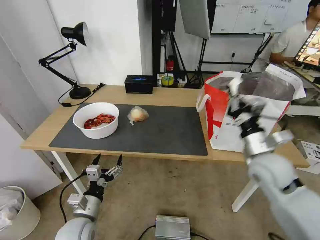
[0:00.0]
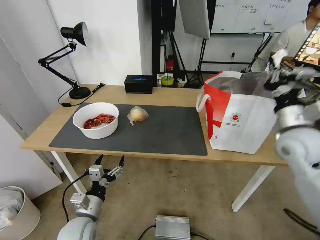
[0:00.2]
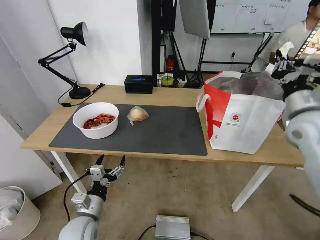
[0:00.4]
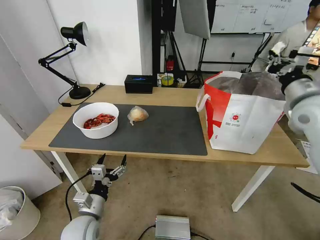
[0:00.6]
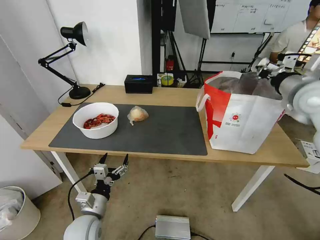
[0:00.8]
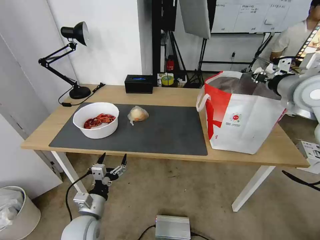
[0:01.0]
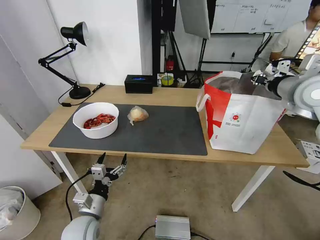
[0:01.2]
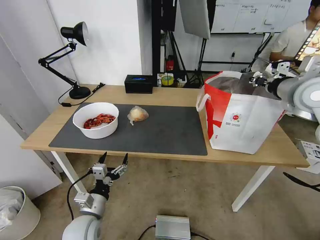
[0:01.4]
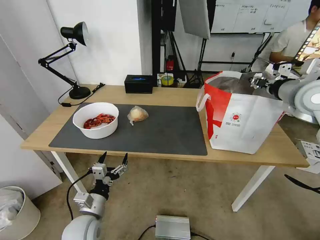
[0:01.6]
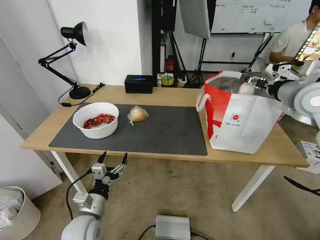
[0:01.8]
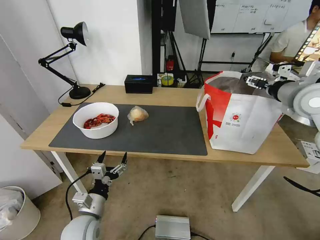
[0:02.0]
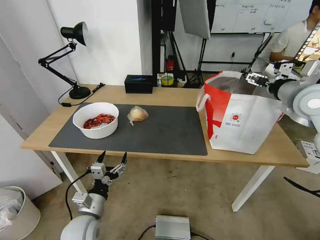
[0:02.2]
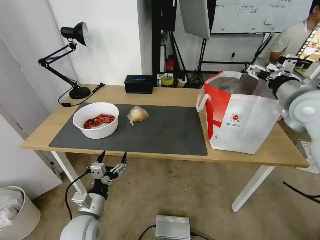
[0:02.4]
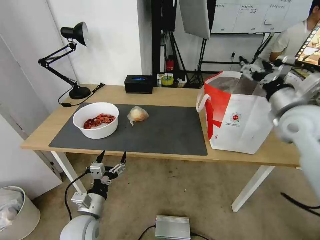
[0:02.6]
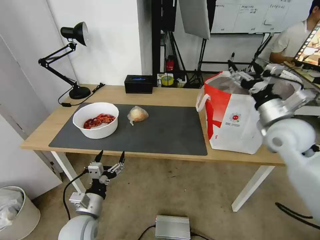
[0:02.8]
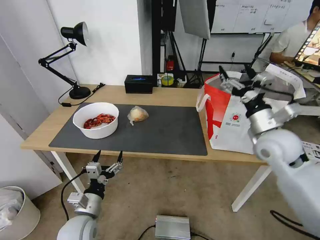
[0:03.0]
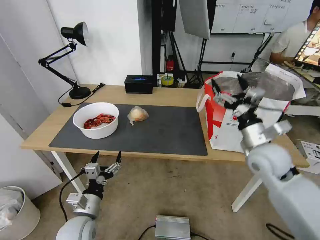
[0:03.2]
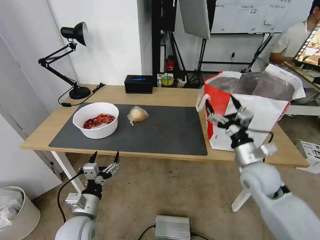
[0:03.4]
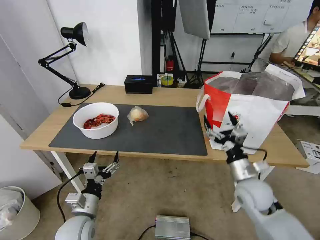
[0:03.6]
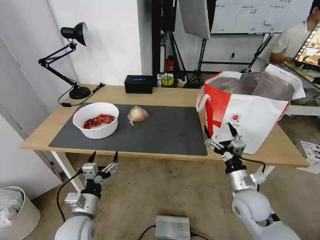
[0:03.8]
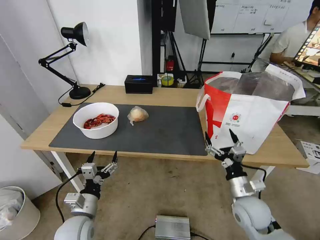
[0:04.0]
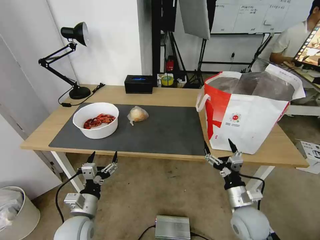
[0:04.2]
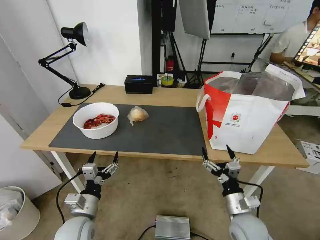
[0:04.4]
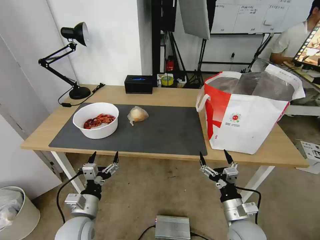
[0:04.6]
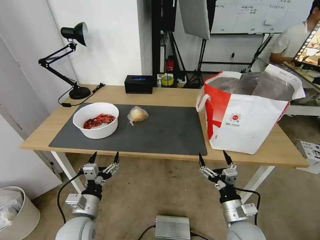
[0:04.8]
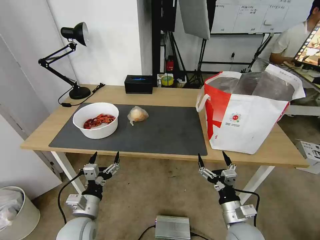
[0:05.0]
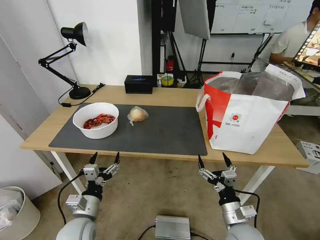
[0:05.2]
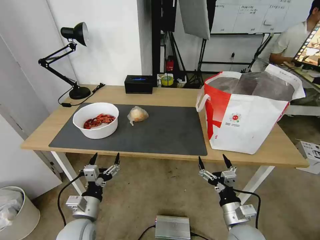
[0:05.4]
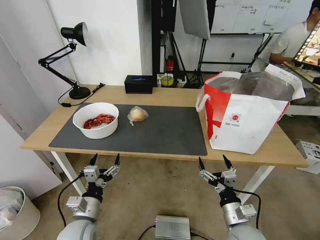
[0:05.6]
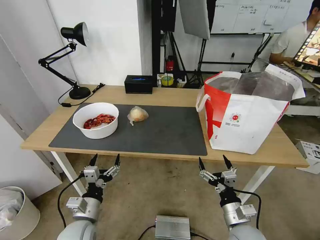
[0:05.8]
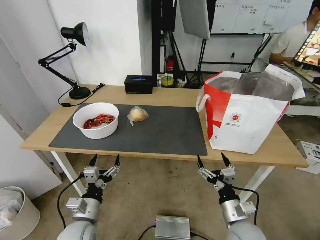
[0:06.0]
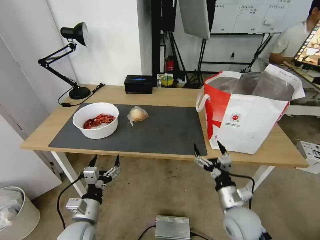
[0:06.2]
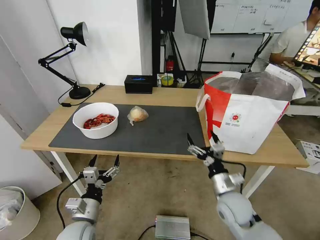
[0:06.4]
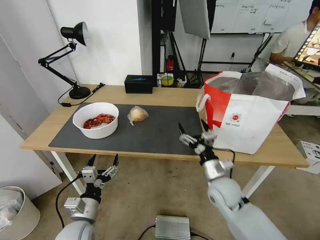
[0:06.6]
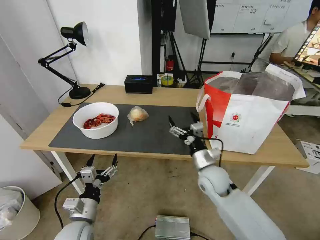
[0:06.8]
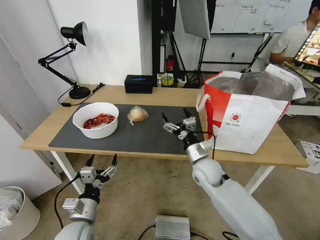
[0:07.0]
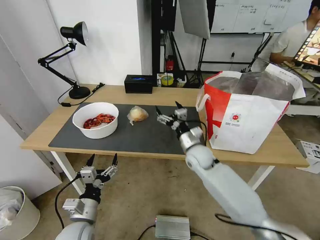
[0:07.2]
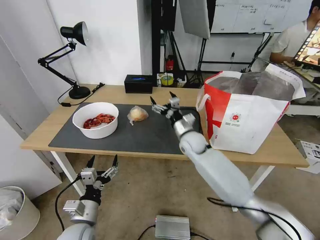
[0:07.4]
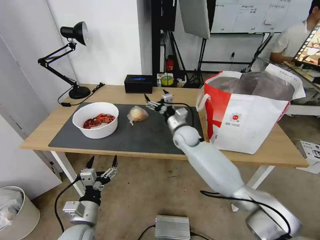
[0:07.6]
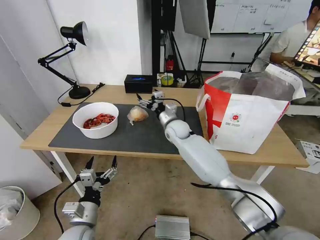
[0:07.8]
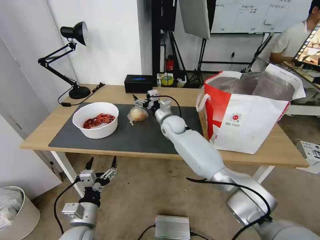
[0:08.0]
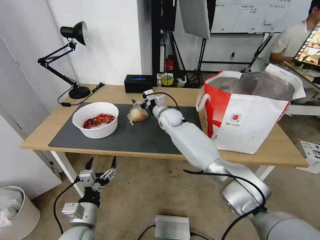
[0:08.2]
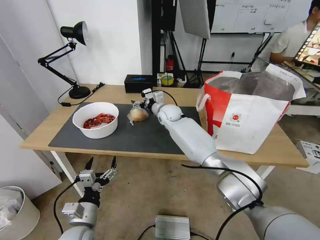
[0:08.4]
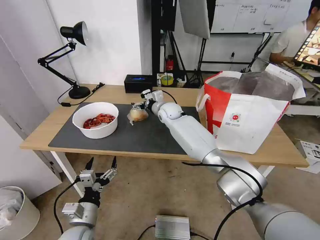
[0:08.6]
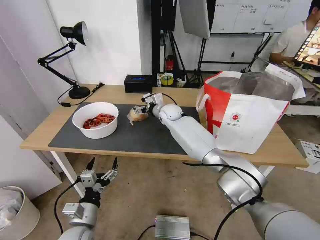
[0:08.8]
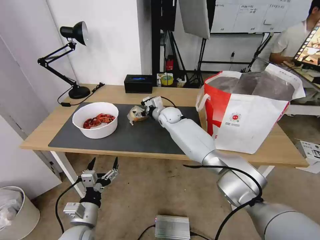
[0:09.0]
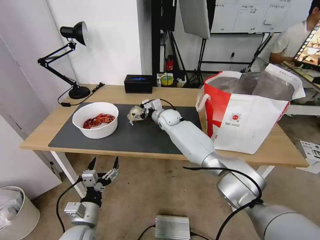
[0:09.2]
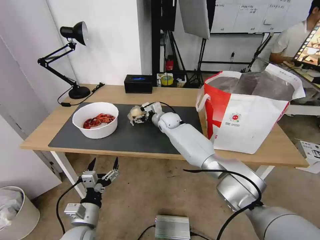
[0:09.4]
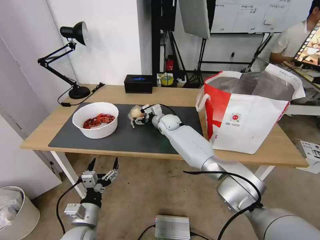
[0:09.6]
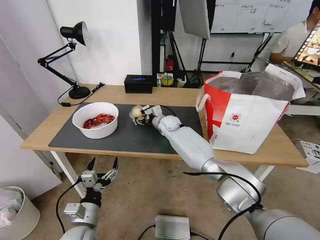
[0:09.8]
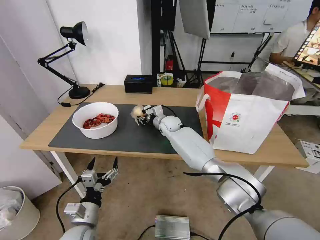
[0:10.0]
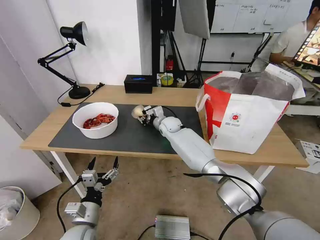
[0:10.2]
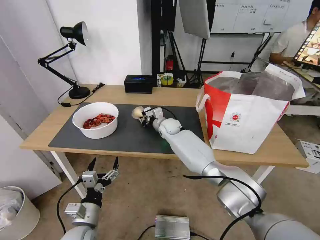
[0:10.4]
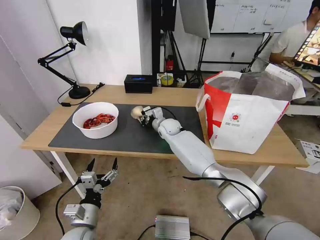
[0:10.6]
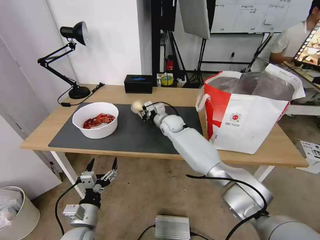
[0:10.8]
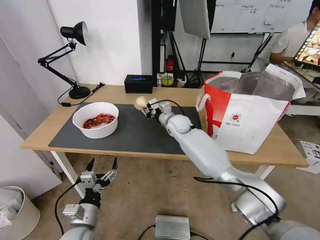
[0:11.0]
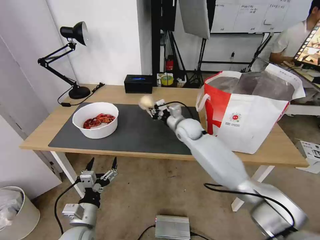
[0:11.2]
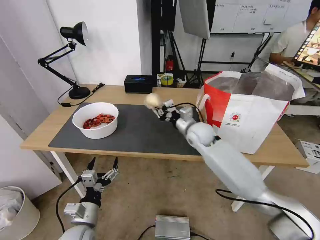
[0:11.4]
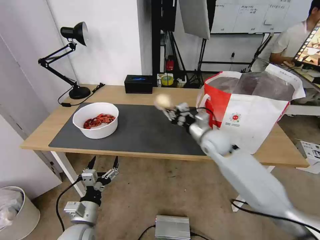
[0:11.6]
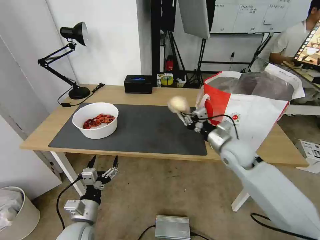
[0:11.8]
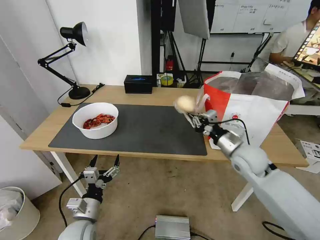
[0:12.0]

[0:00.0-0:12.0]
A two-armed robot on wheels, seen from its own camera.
Task of the whole recording: Pick up the trash from the table and place it into the takeout bag.
0:00.0 to 0:01.6: The right gripper is displaced upward, forward and to the right by roughly 20 cm, and opens its fingers.
0:01.6 to 0:03.0: The right gripper heads downward and to the left, covering approximately 10 cm, and opens up.
0:03.0 to 0:04.4: The right gripper travels downward and backward by approximately 30 cm.
0:04.4 to 0:06.0: The grippers make only small movements.
0:06.0 to 0:07.6: The right gripper shifts roughly 35 cm forward and to the left.
0:07.6 to 0:09.0: The right gripper shifts approximately 10 cm forward and to the left.
0:09.0 to 0:10.4: The right gripper ends up roughly 5 cm from where it was, and closes.
0:10.4 to 0:12.0: The right gripper goes roughly 30 cm to the right and backward.

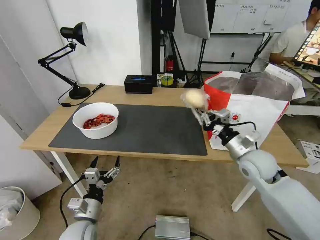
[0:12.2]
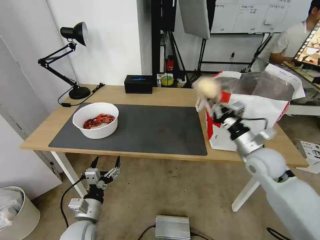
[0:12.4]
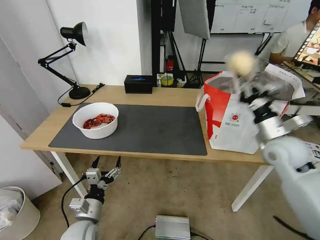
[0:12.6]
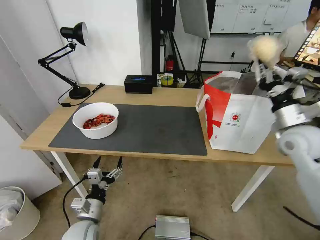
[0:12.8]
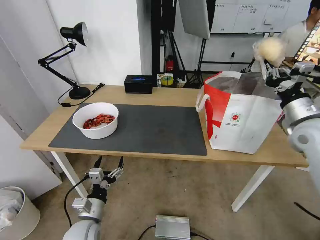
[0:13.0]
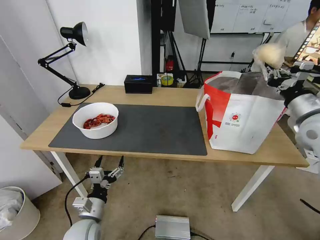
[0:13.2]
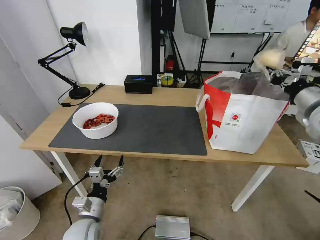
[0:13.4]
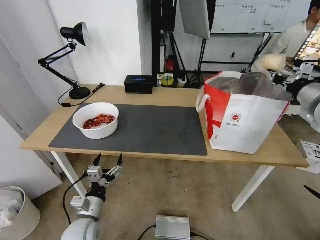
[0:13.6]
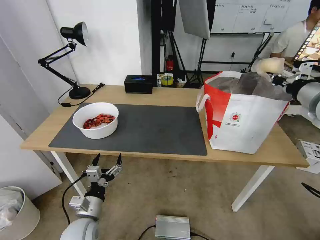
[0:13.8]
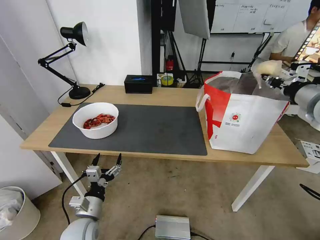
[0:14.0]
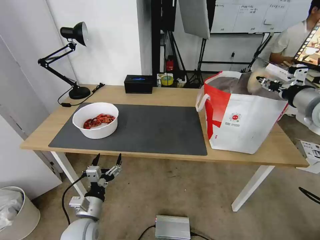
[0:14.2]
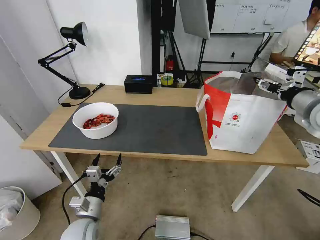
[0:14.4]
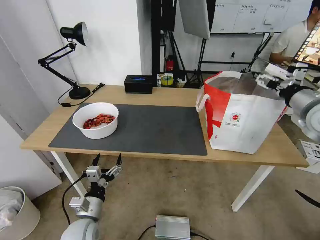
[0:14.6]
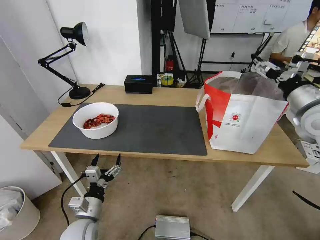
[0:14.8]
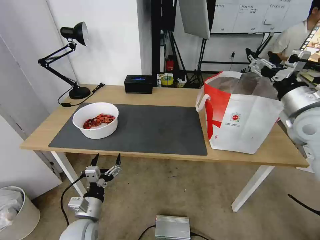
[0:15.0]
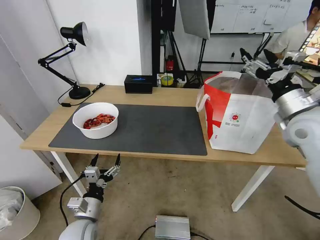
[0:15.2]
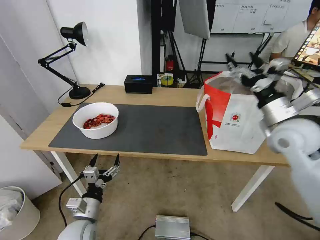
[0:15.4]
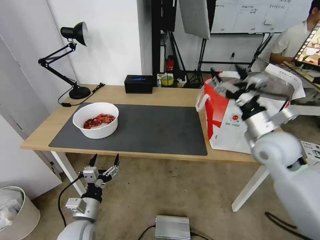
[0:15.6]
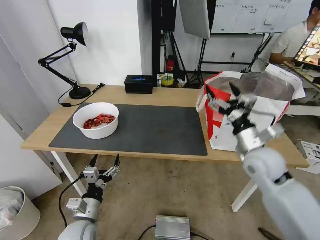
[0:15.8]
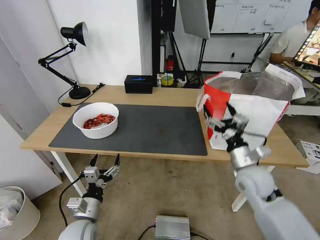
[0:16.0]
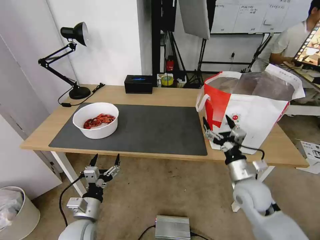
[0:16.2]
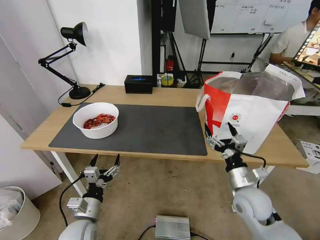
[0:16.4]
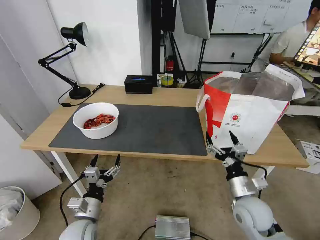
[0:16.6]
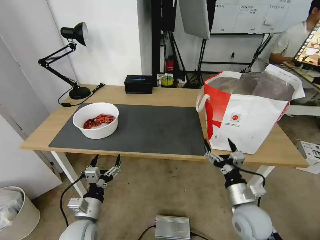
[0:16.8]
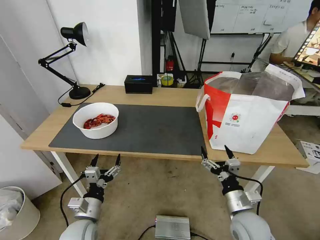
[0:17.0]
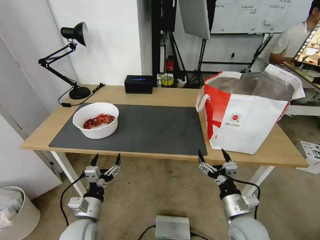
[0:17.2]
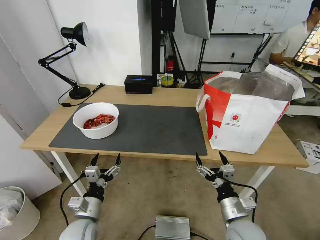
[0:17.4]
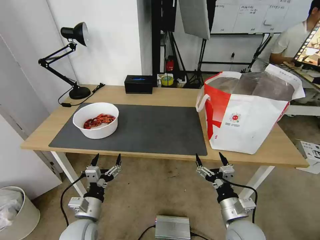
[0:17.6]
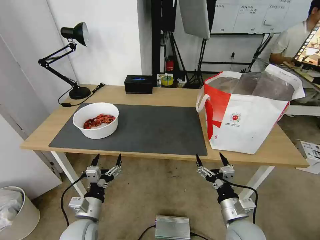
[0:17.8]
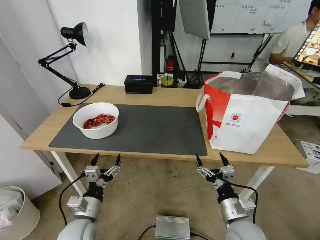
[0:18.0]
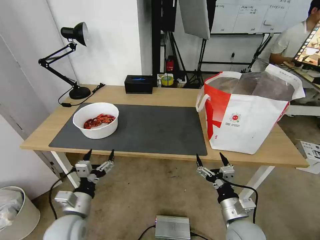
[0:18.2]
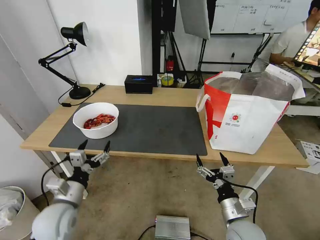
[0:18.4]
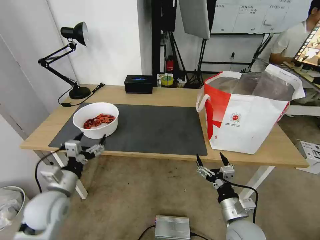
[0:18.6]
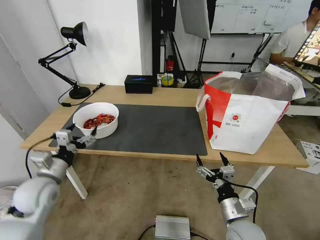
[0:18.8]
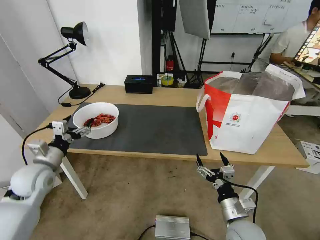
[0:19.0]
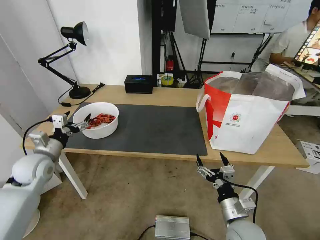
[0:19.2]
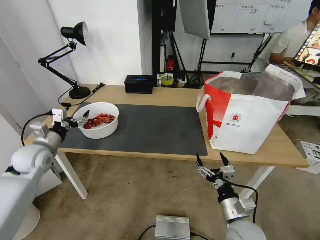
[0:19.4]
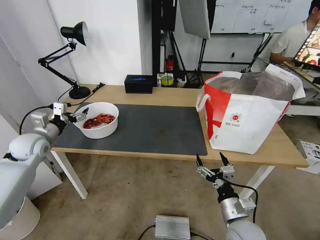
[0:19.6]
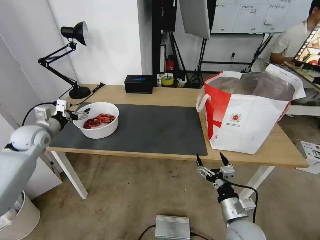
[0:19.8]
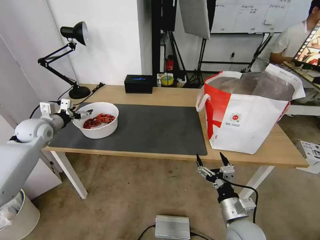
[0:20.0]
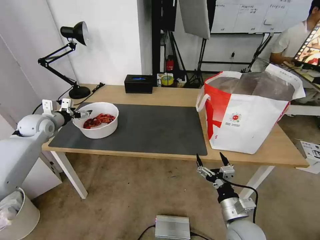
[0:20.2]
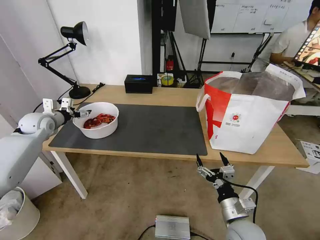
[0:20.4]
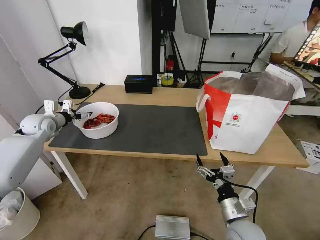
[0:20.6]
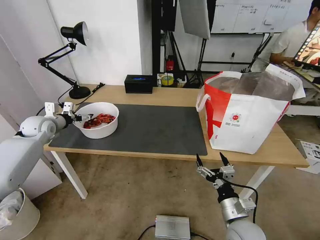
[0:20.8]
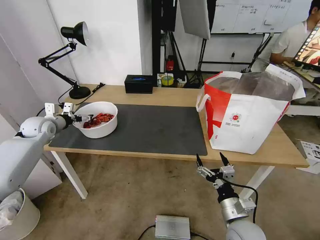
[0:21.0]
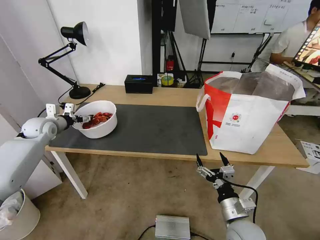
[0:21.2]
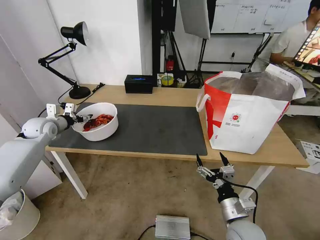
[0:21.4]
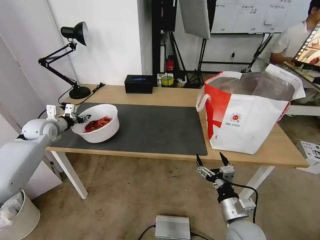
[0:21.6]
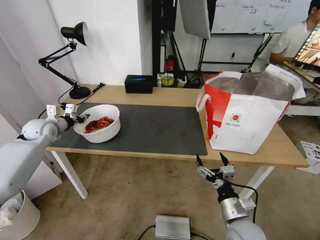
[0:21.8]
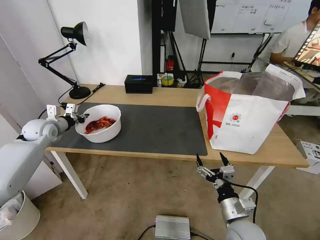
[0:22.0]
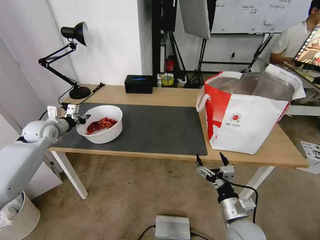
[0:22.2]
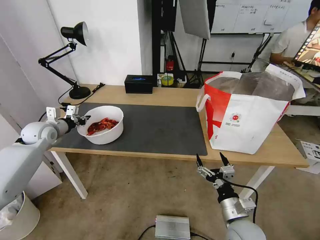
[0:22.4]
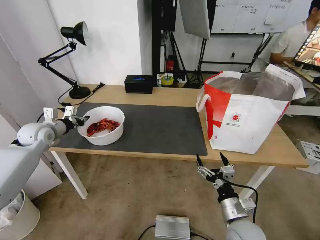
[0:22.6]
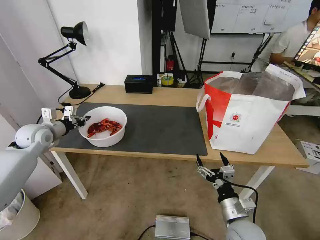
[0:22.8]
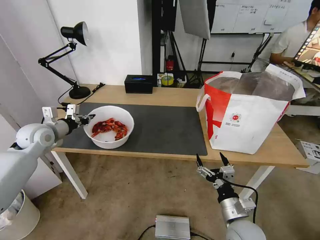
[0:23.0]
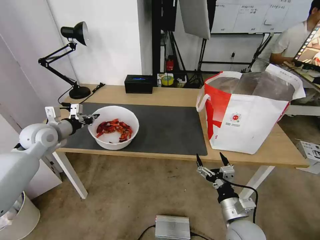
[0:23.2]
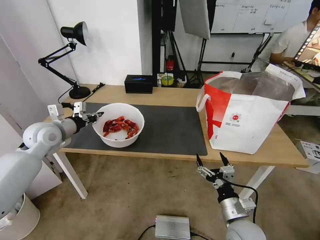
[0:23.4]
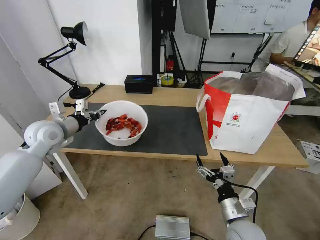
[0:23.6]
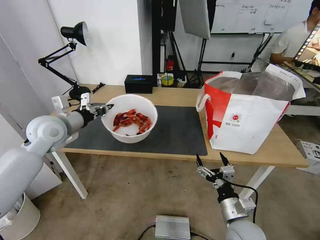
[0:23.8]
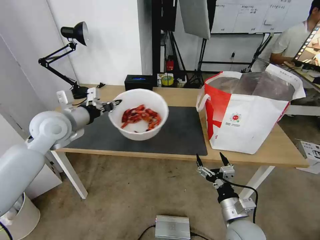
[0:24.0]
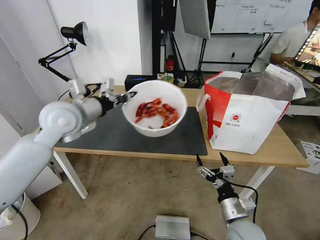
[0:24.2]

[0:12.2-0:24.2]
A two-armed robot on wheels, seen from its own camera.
Task of the whole recording: Pick up the trash from the table and place it into the takeout bag.
0:12.2 to 0:13.8: The right gripper shifts approximately 25 cm upward and to the right.
0:13.8 to 0:15.2: The right gripper travels to the left by about 5 cm, and opens.
0:15.2 to 0:16.6: The right gripper heads downward, backward and to the left, covering approximately 30 cm.
0:16.6 to 0:18.2: The right gripper travels backward by some 5 cm.
0:18.2 to 0:19.8: The left gripper moves forward, to the left and upward, approximately 30 cm.
0:19.8 to 0:21.2: The left gripper goes approximately 5 cm forward.
0:21.2 to 0:22.6: The left gripper closes up.
0:22.6 to 0:24.2: The left gripper heads to the right and upward, covering some 20 cm.
